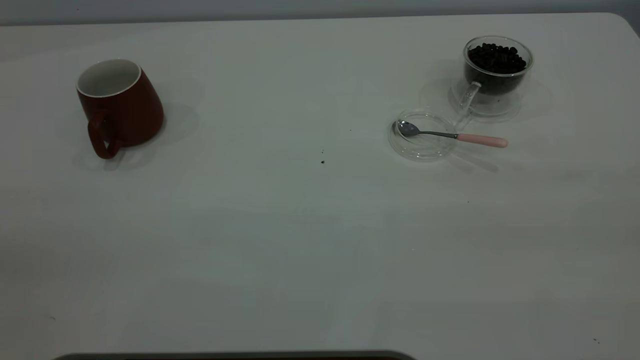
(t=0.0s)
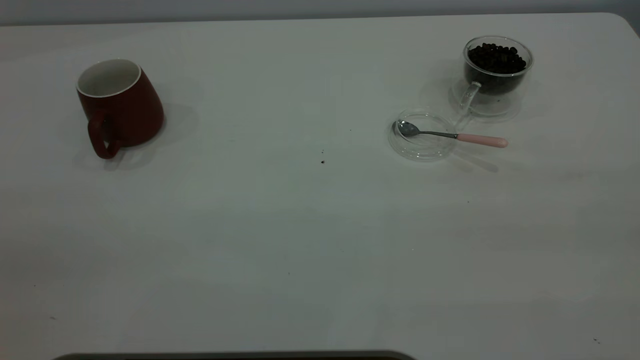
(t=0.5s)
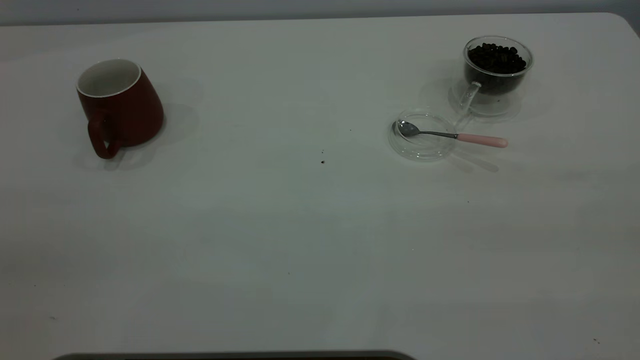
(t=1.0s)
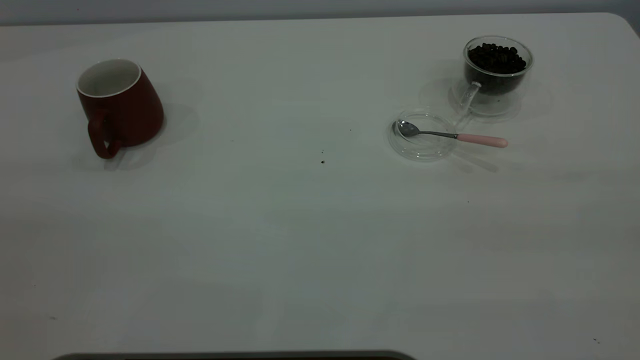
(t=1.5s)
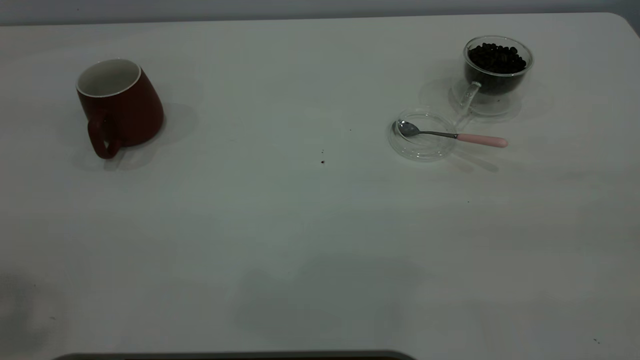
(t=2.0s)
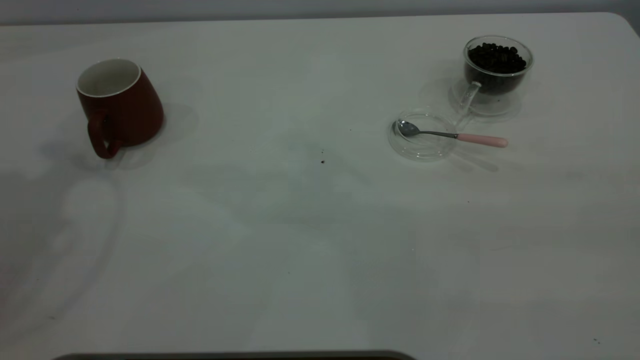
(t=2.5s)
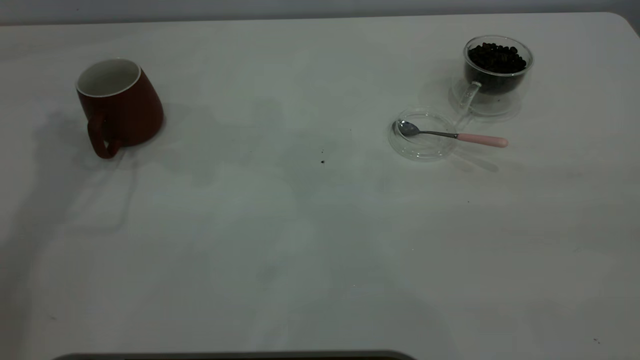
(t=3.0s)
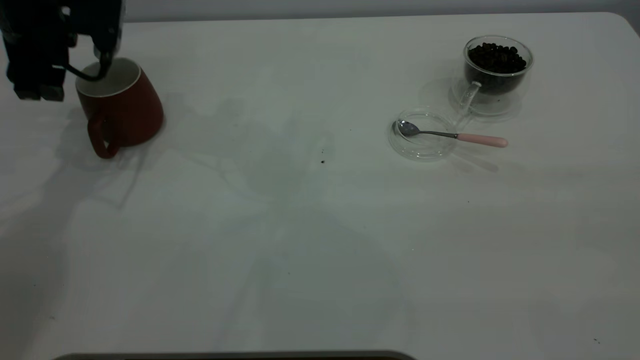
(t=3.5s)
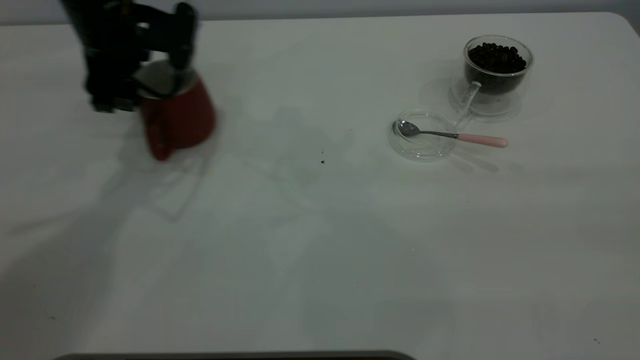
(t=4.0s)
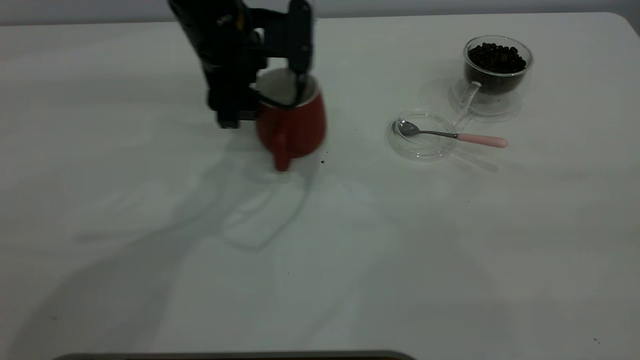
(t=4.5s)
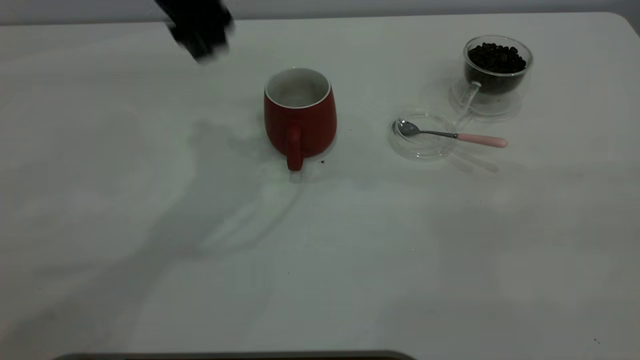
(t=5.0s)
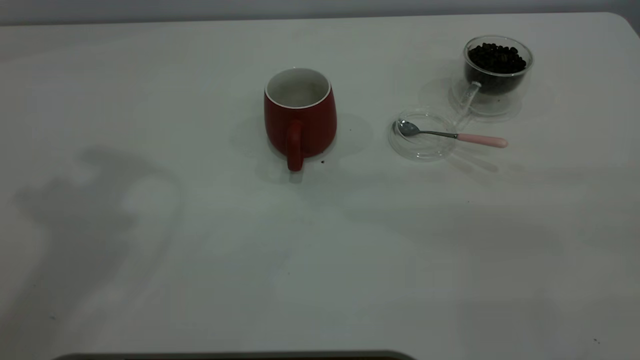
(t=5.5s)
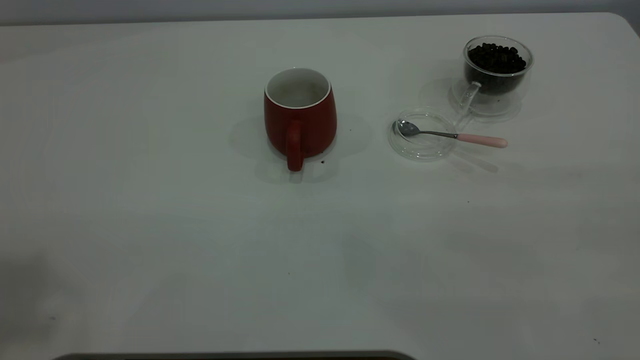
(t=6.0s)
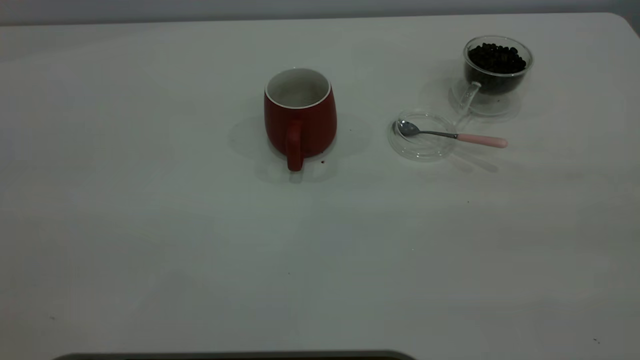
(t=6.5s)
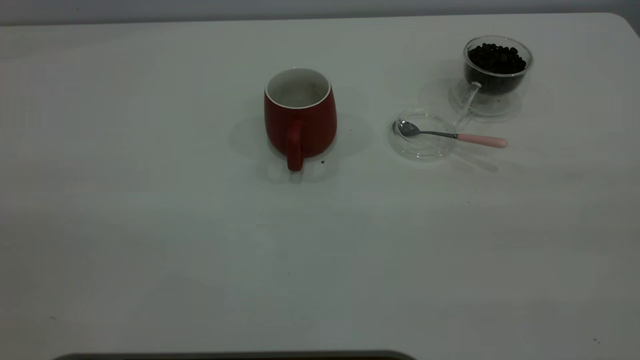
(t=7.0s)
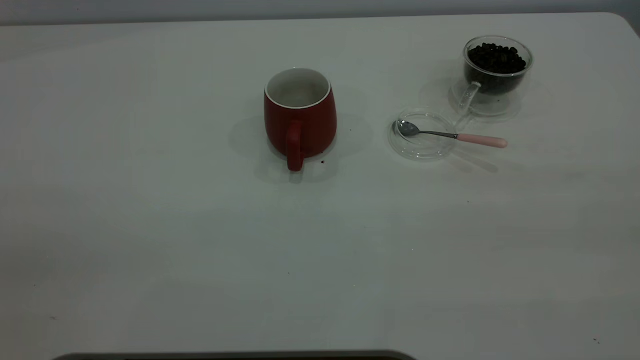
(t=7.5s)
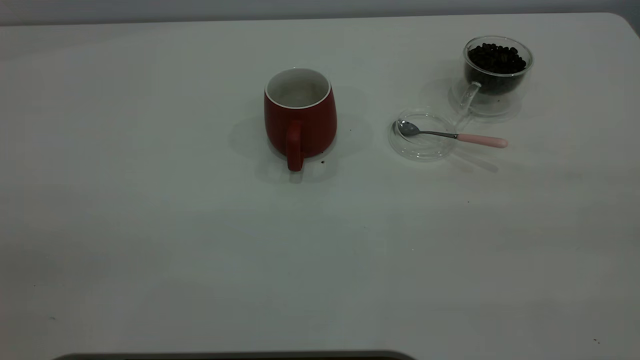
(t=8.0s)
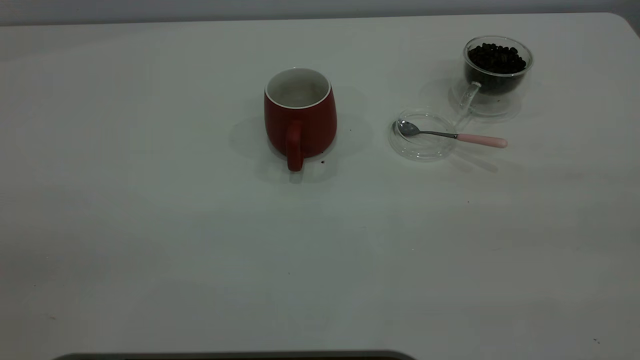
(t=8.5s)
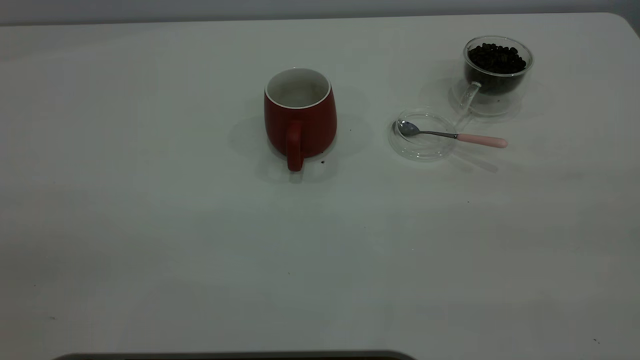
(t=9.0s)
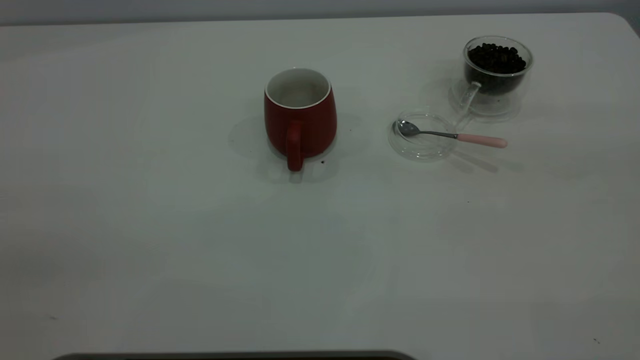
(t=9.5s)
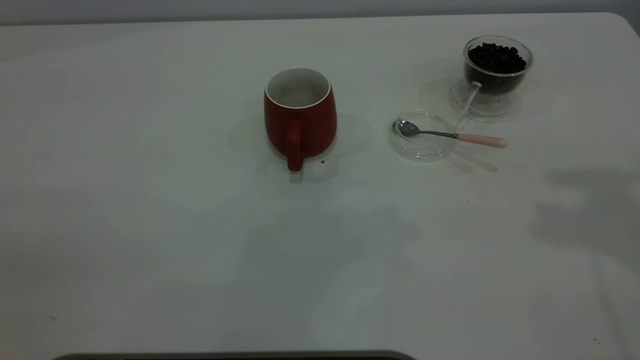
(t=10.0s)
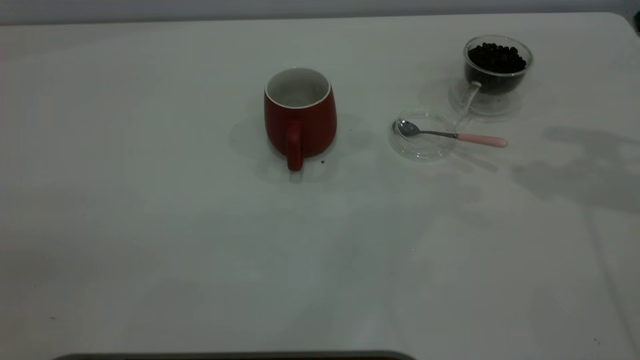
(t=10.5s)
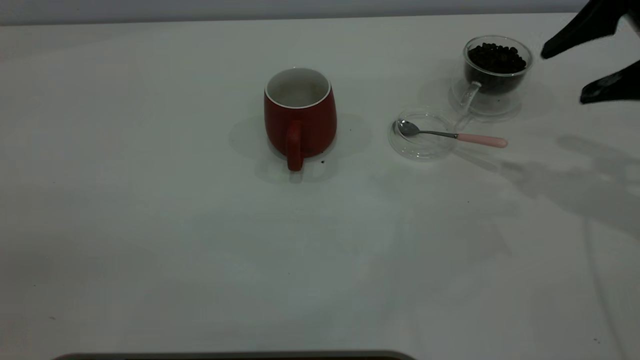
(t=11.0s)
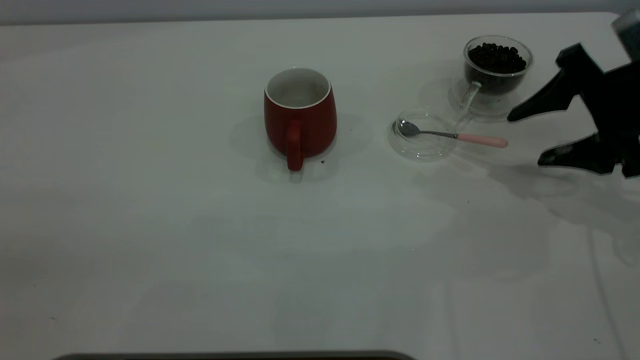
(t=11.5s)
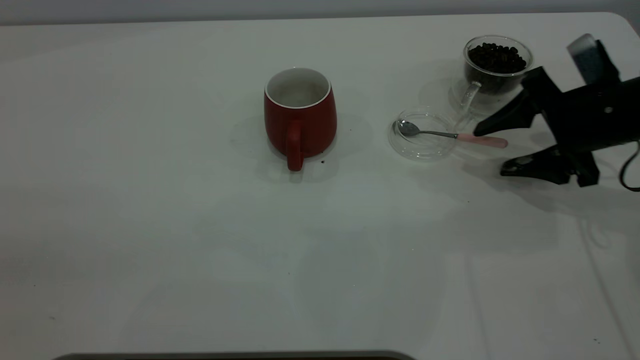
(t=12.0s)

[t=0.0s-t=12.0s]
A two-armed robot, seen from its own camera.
Task of the whole recording: the left gripper place the red cup in the center of the table, the right gripper take the pink spoon from the cup lid and scoop out the coffee beans from the coffee cup and put them into the red cup, the right gripper put the spoon back into the cup lid.
Step, t=0.0s to t=4.5s: Move the cup to the center of view.
t=2.0s to t=4.0s: The left gripper travels downward and forward by approximately 40 cm.
t=4.0s to t=6.0s: The left gripper shifts approximately 50 cm upward and backward.
t=10.0s to t=12.0s: The right gripper moves downward, approximately 30 cm.

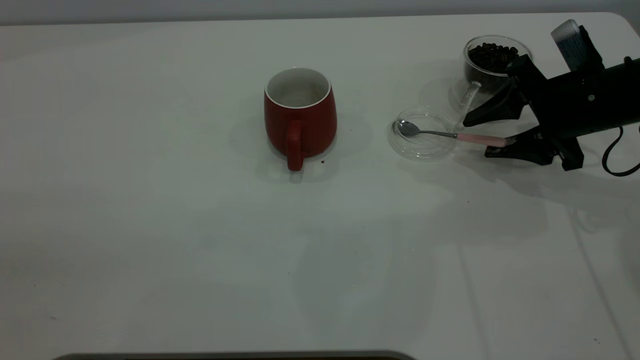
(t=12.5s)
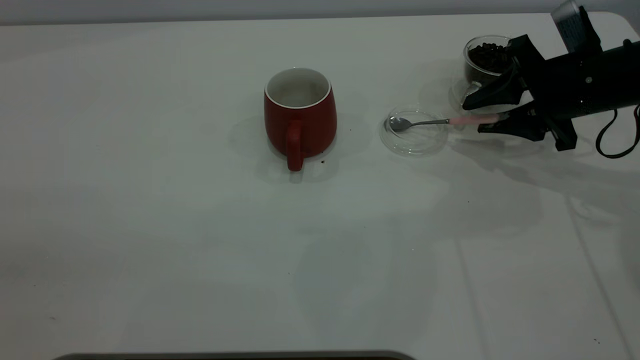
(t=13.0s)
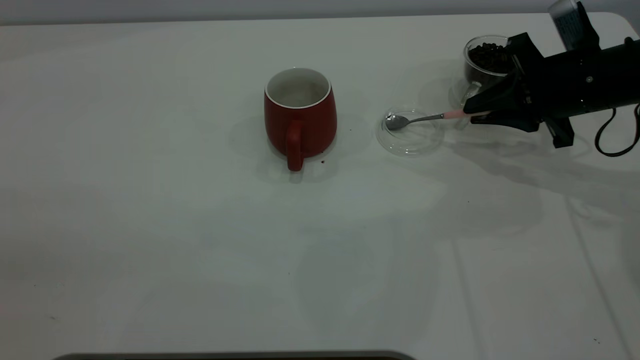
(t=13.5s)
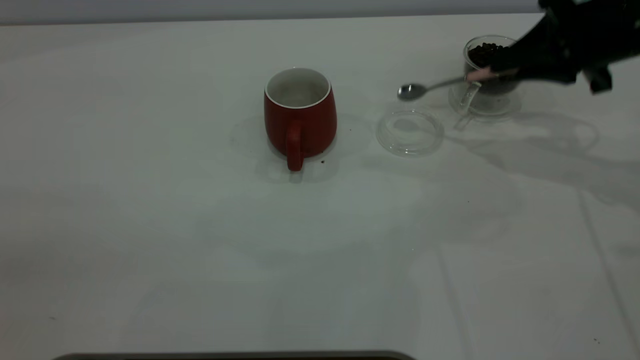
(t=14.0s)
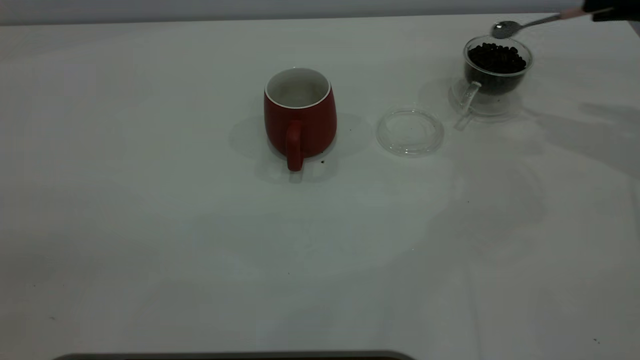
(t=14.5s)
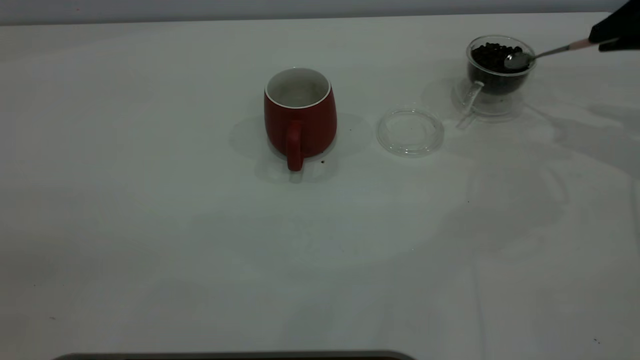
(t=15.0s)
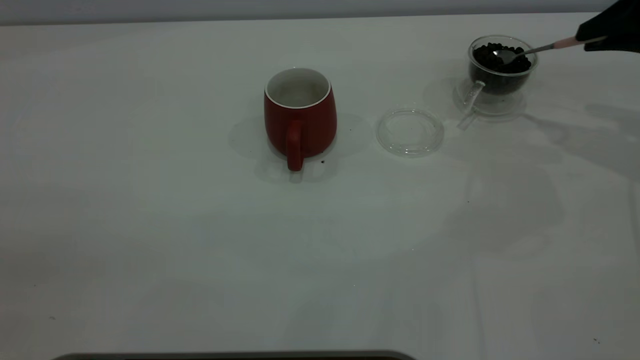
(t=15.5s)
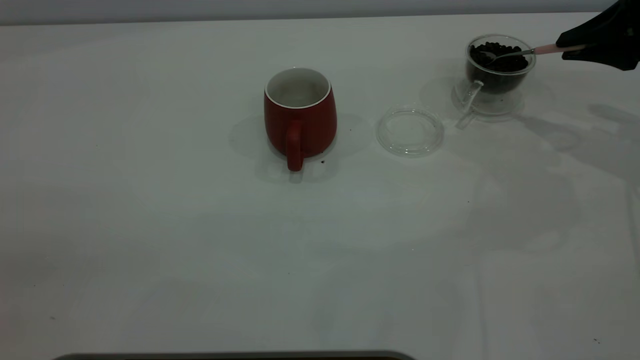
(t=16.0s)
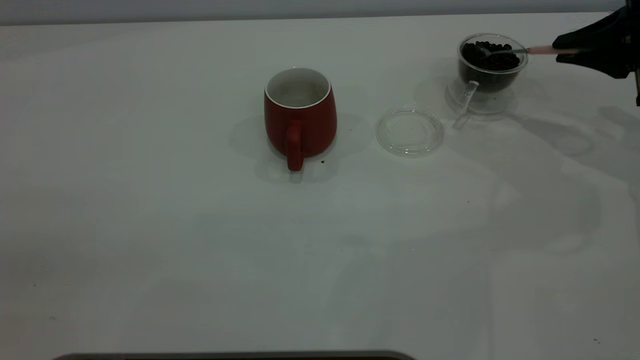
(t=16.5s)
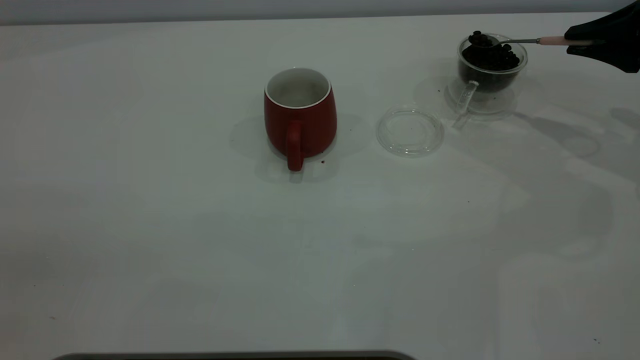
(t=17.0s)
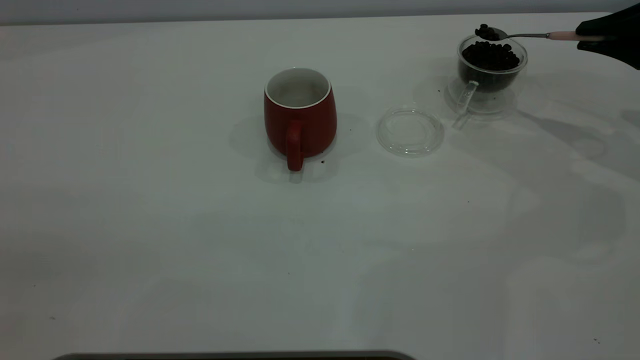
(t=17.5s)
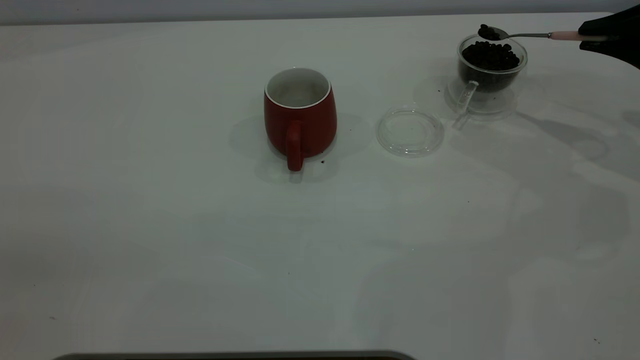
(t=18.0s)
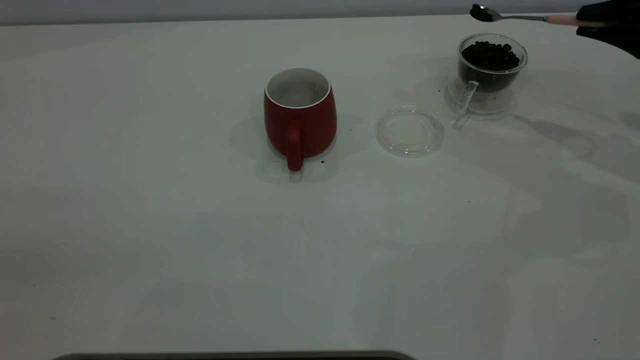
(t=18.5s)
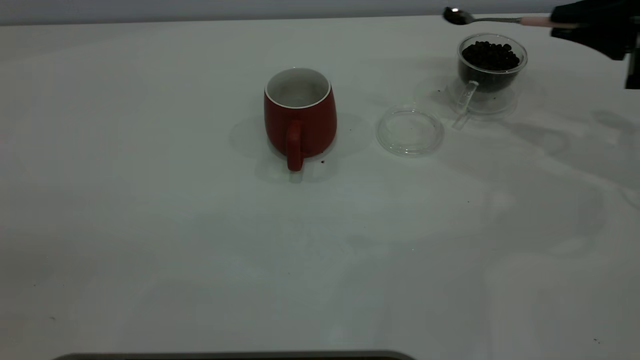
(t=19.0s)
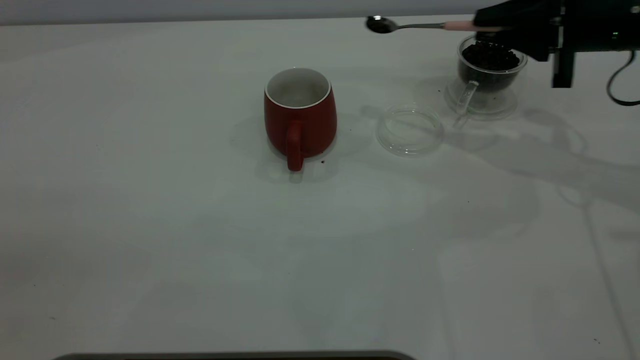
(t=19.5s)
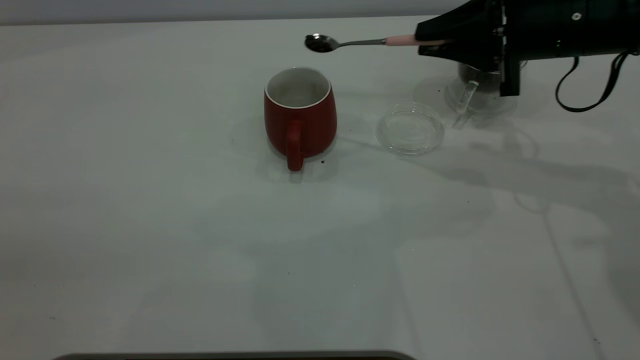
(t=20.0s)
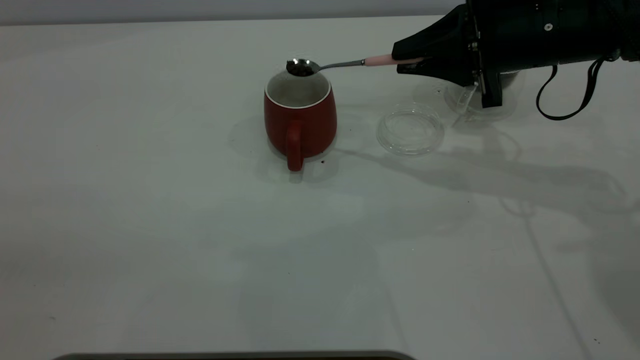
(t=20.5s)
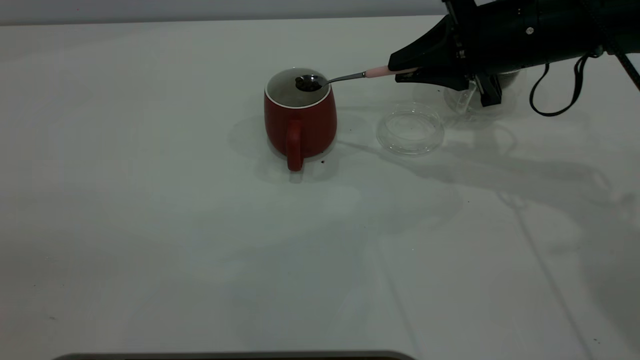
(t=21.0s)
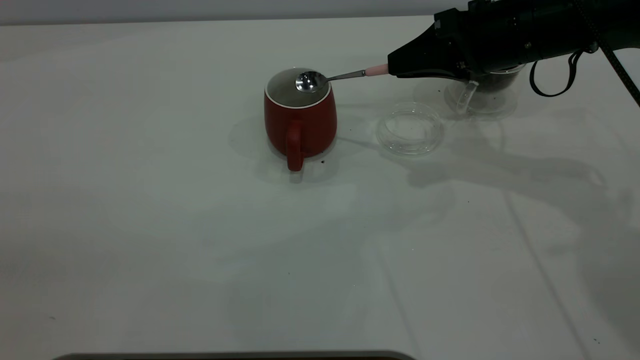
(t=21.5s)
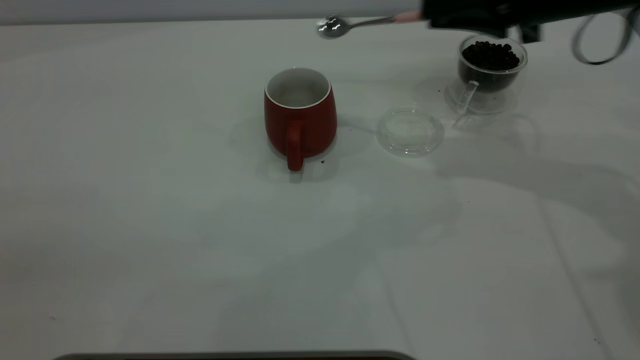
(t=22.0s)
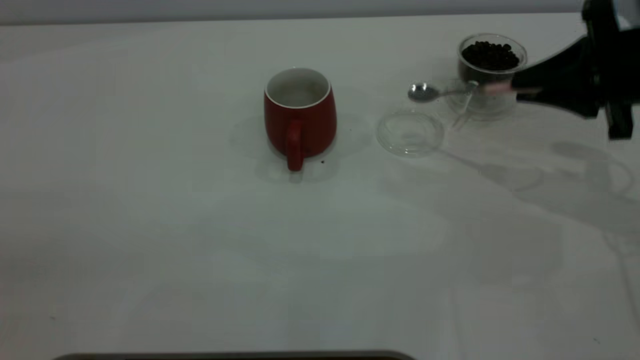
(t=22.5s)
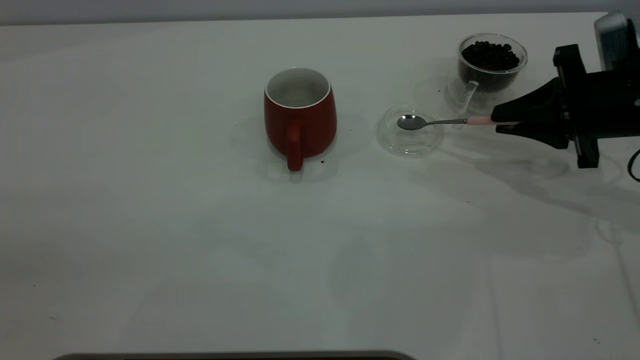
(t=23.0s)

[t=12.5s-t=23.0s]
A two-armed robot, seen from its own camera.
Task of the whole recording: the left gripper place the red cup in the center of the table, the right gripper take the pink spoon from the cup lid and scoop out the coffee beans from the coffee cup and put them into the red cup, the right gripper put the spoon back into the cup lid.
Step, t=14.0s to t=21.5s: Scoop a spoonful of beans into the cup.
t=12.5s to t=14.5s: The right gripper heads upward and to the right, covering approximately 15 cm, and closes up.
t=14.5s to t=16.5s: The right gripper shifts approximately 5 cm downward.
t=16.5s to t=19.0s: The grippers make only small movements.
t=19.0s to t=21.0s: The right gripper shifts roughly 15 cm to the left.
t=21.0s to t=23.0s: The right gripper goes some 15 cm to the right and downward.
